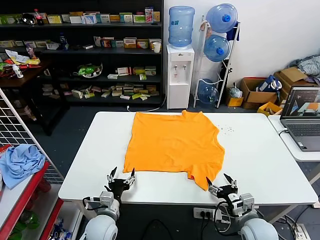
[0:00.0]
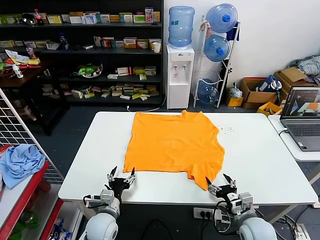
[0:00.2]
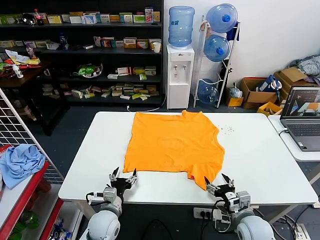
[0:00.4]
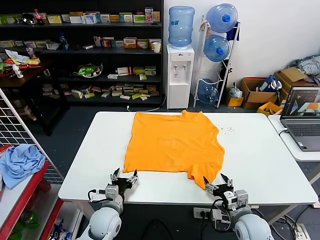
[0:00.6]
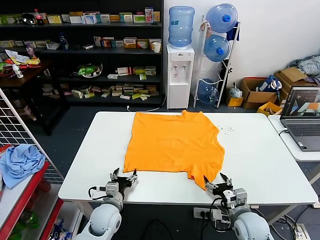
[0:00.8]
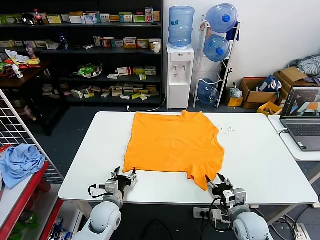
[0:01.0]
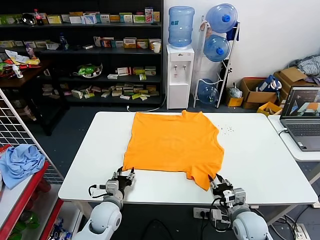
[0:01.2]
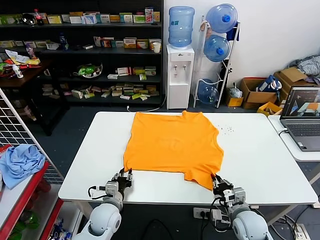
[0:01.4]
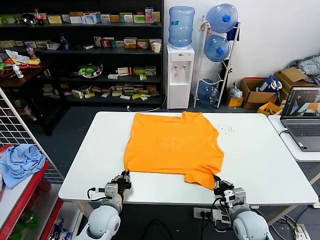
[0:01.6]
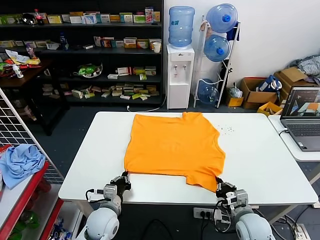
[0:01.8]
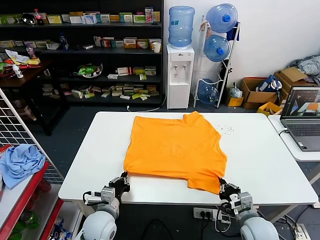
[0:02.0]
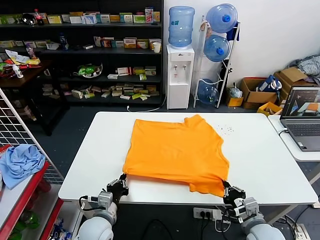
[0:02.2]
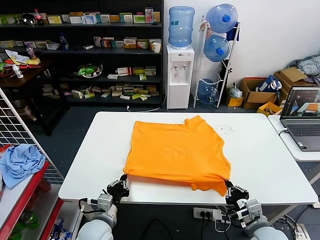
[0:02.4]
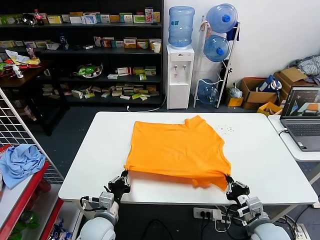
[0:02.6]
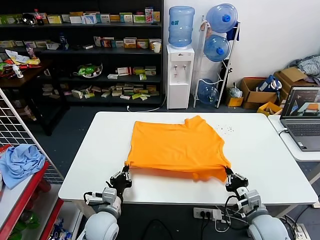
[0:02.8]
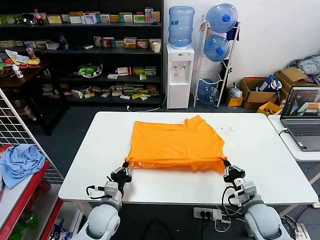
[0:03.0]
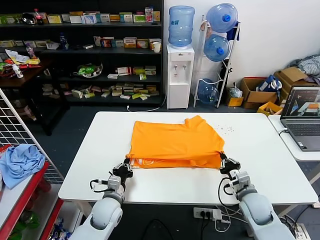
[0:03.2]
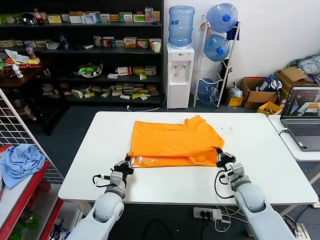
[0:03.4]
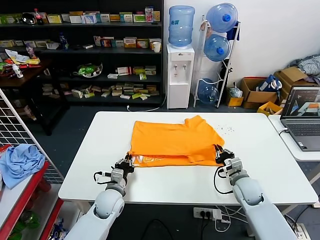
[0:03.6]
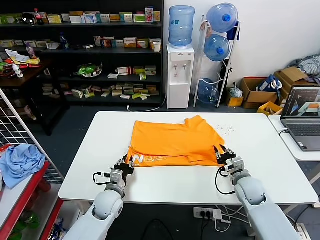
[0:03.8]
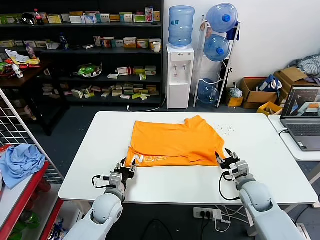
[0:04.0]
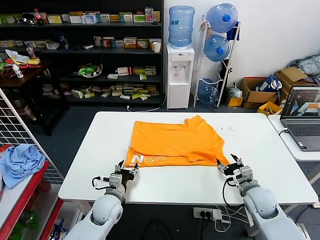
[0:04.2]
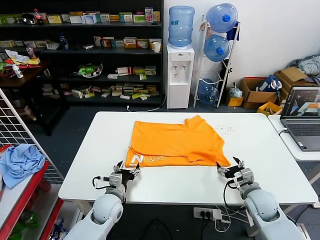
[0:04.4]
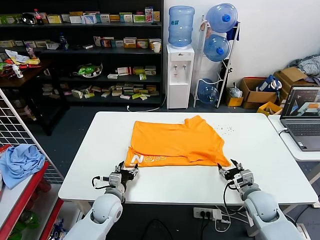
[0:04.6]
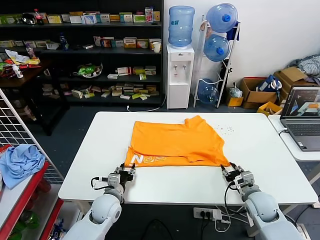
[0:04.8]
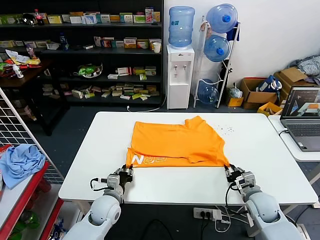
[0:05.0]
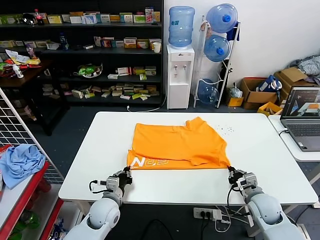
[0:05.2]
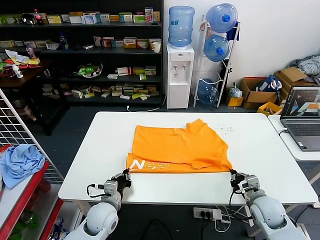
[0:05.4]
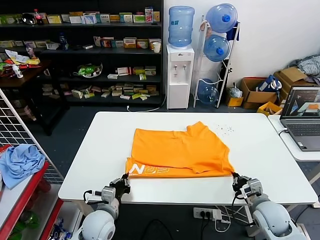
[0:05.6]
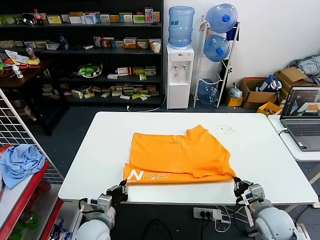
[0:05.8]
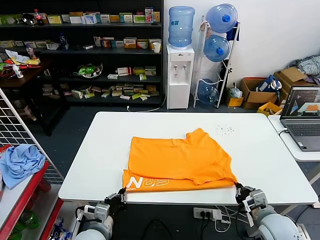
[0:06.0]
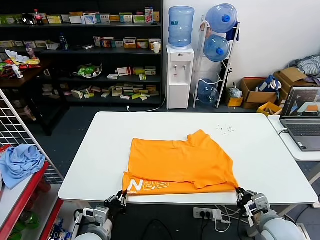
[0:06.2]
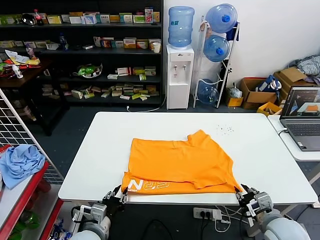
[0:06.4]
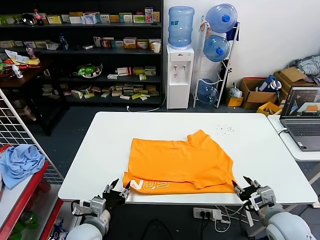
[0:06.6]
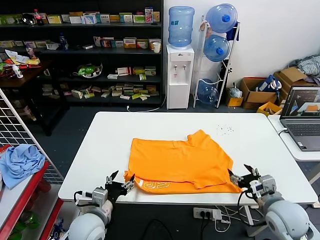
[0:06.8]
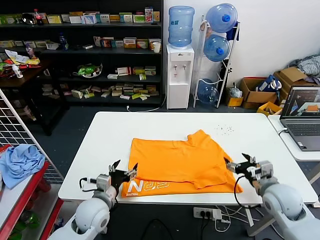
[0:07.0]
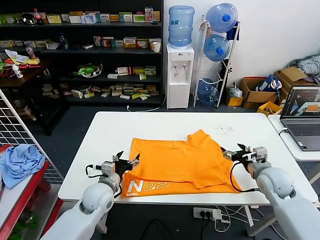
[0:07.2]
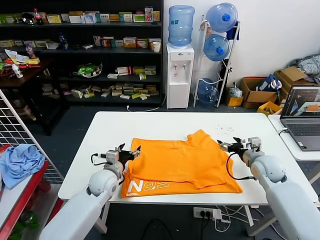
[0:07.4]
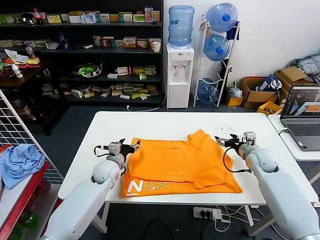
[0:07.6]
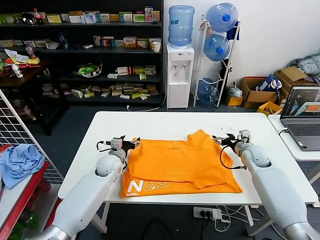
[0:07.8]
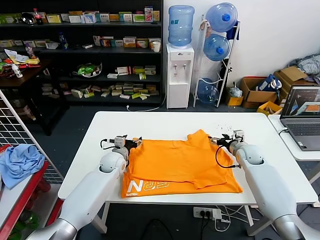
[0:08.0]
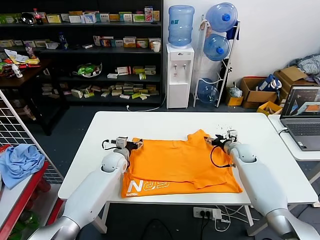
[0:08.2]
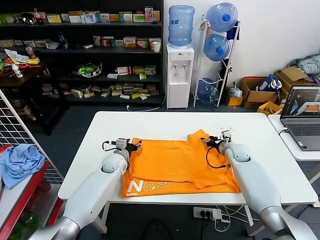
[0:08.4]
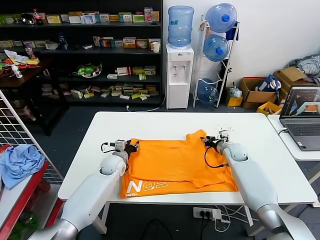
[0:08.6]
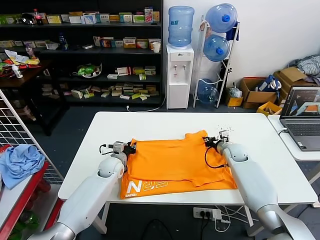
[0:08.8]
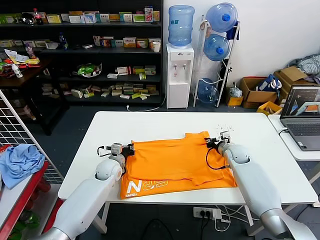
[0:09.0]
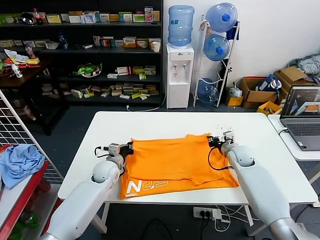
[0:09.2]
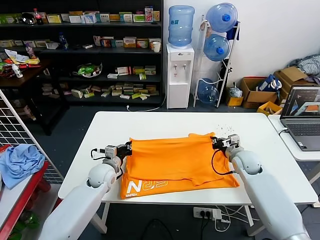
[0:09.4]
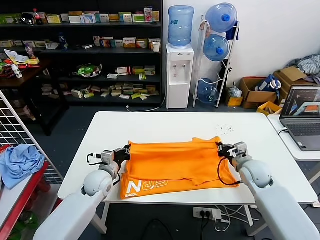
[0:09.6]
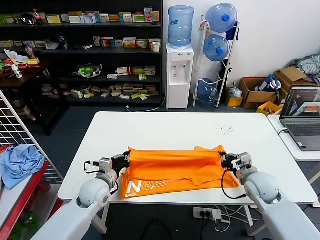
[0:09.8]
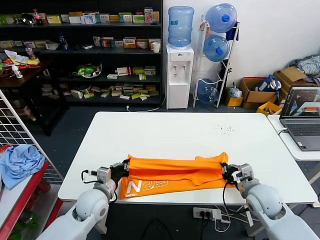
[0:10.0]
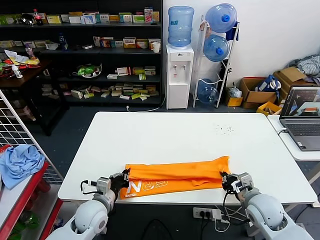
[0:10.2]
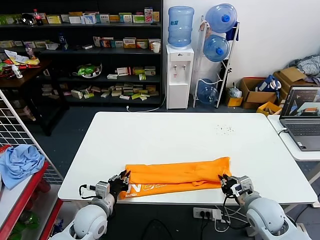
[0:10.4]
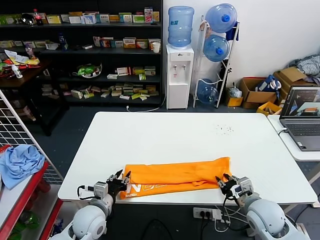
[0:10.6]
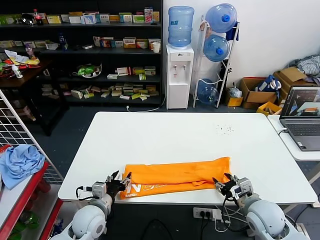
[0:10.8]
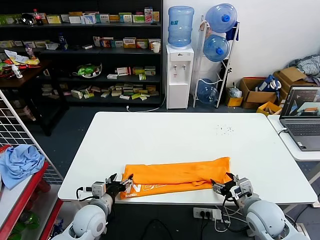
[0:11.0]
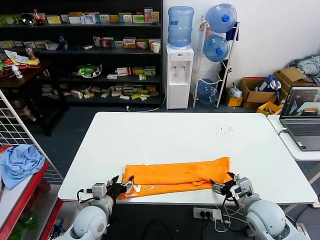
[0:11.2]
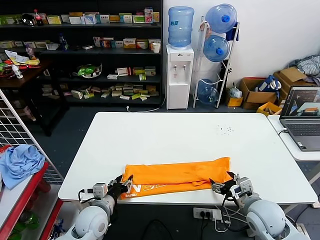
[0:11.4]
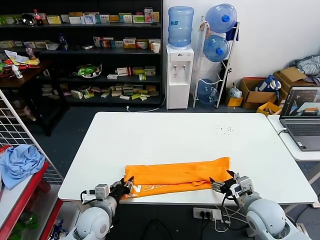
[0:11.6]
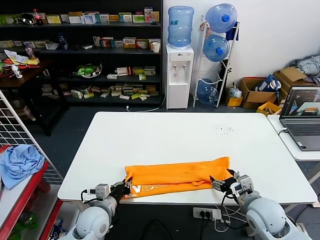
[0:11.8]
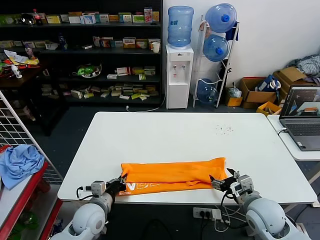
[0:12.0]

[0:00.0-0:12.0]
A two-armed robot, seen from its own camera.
Task of the whole recording: fold and organize the clothes.
Step, 0:00.0 to 0:01.6: use both grippers simultaneously to clamp the lower edge of the clothing fabric.
Step, 0:01.8 to 0:03.8: use both grippers to drag the lower edge of the fabric forward and fold it over the upper edge.
Step, 0:04.0 to 0:06.4: Drag the clothes downward with both gripper.
Step, 0:06.6 to 0:09.0: use both grippers simultaneously to clamp the upper edge of the clothing fabric.
Step, 0:09.2 to 0:10.4: use both grippers to drag the upper edge of the fabric backward and fold it over the lower edge.
Step, 0:10.8 to 0:11.8: use the left gripper to clamp the left edge of the fabric.
0:03.0 to 0:04.4: The right gripper goes forward and returns, approximately 10 cm each way, and opens its fingers, while the left gripper opens its fingers.
0:04.4 to 0:06.0: The grippers both shift backward by roughly 10 cm. The left gripper closes. The right gripper closes its fingers.
0:06.0 to 0:07.6: Both grippers move forward, approximately 25 cm. The left gripper opens. The right gripper opens up.
0:07.6 to 0:09.0: The right gripper moves forward and to the left, roughly 5 cm, and closes its fingers. The left gripper changes place by some 5 cm, and closes its fingers.
0:09.0 to 0:10.4: The grippers both shift backward by approximately 20 cm.
0:10.4 to 0:12.0: The left gripper opens and closes again. Meanwhile the right gripper opens its fingers.

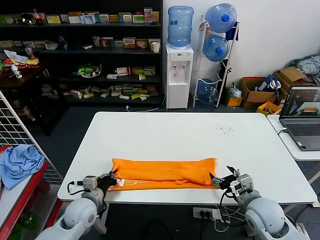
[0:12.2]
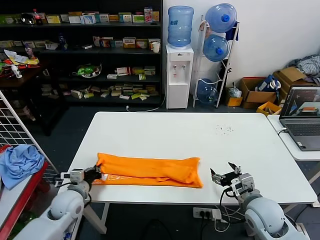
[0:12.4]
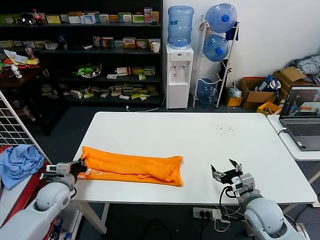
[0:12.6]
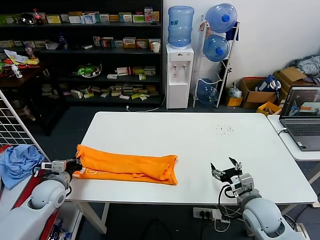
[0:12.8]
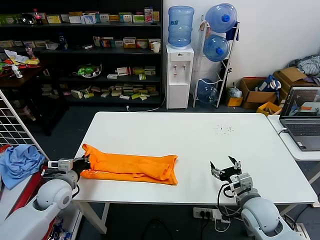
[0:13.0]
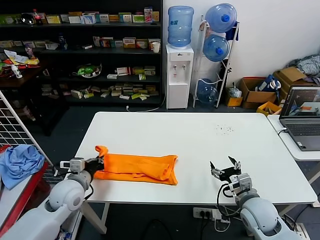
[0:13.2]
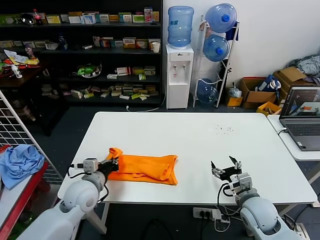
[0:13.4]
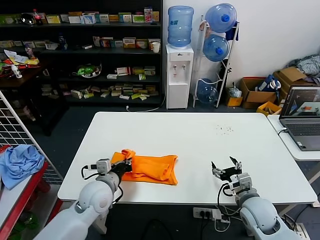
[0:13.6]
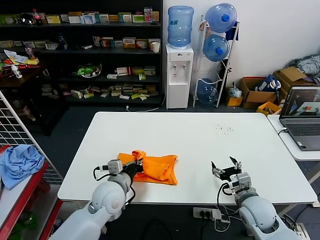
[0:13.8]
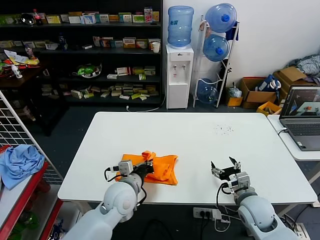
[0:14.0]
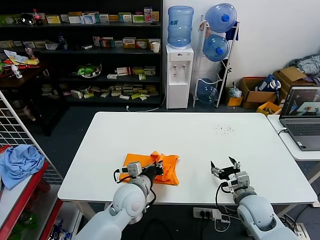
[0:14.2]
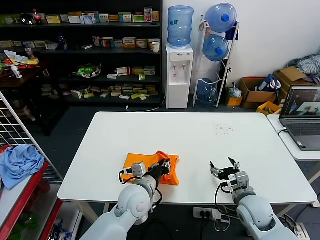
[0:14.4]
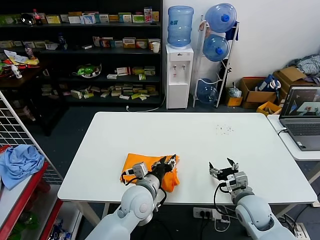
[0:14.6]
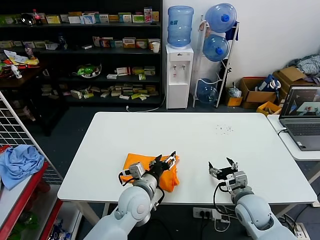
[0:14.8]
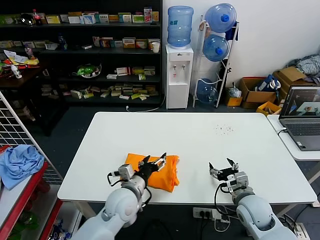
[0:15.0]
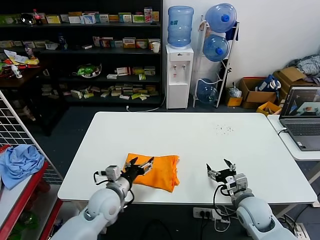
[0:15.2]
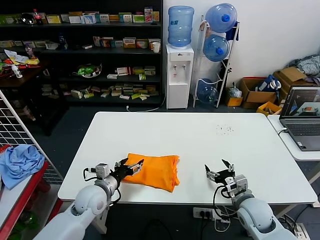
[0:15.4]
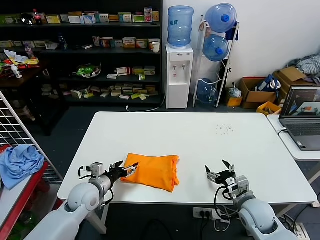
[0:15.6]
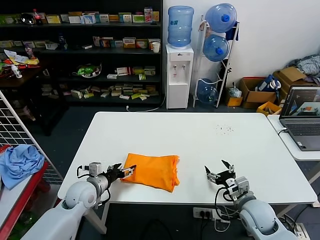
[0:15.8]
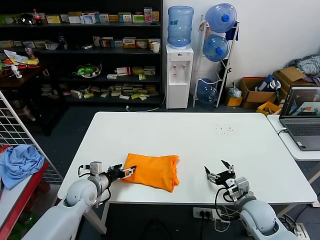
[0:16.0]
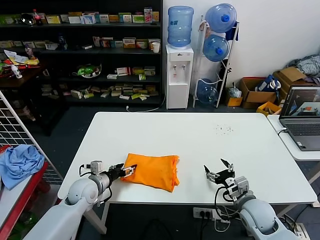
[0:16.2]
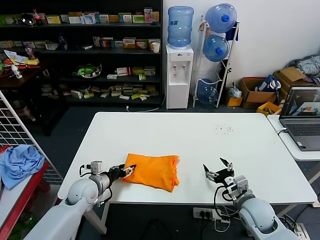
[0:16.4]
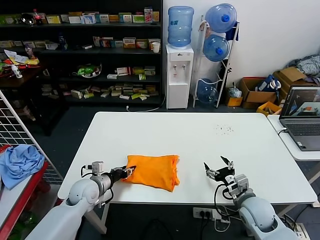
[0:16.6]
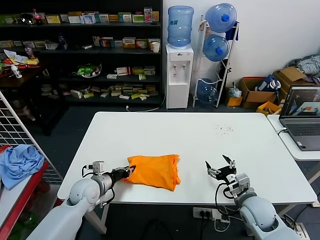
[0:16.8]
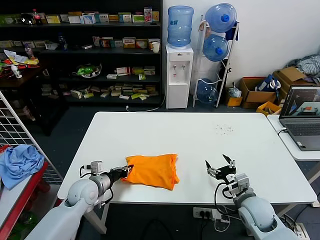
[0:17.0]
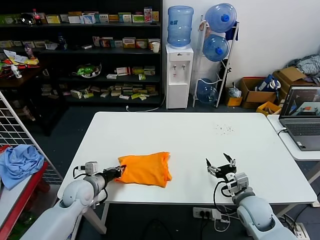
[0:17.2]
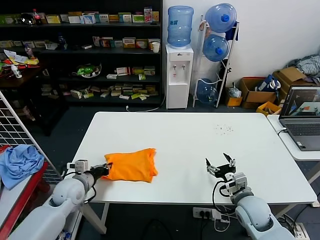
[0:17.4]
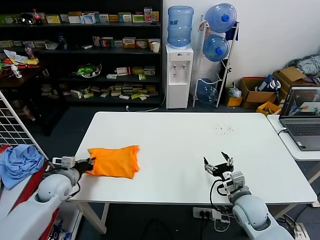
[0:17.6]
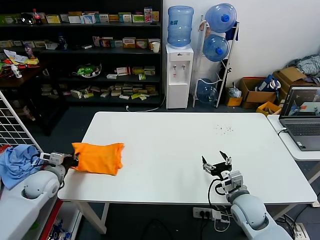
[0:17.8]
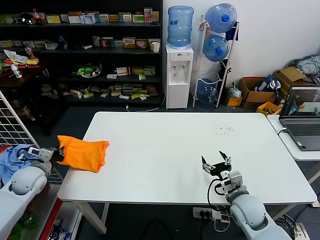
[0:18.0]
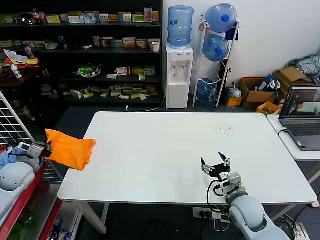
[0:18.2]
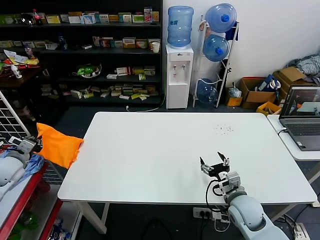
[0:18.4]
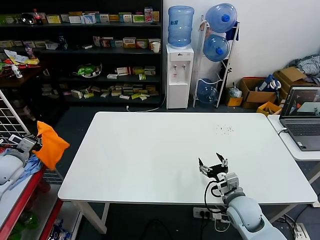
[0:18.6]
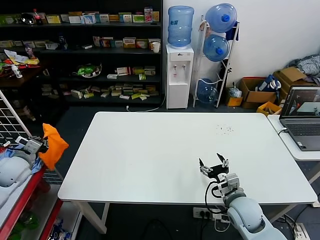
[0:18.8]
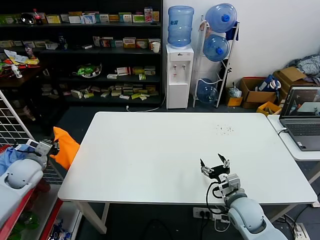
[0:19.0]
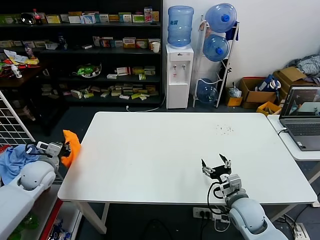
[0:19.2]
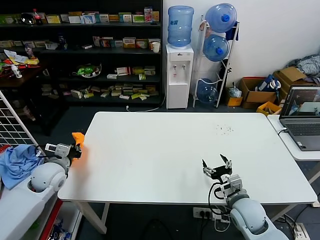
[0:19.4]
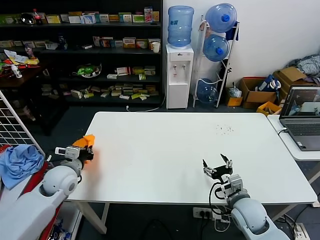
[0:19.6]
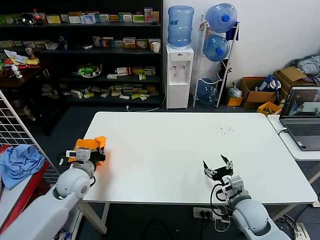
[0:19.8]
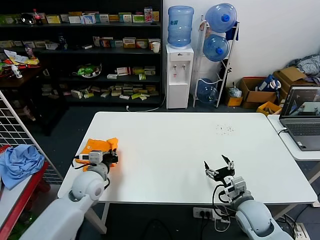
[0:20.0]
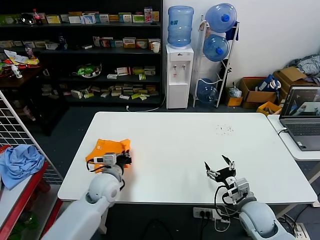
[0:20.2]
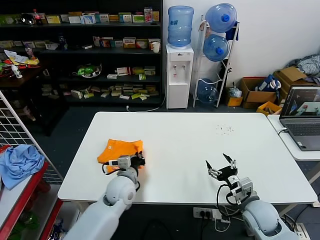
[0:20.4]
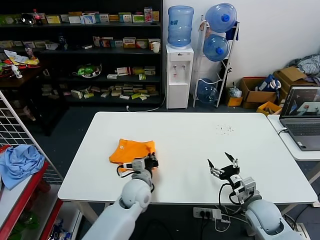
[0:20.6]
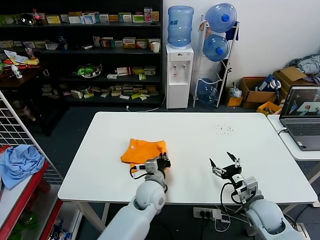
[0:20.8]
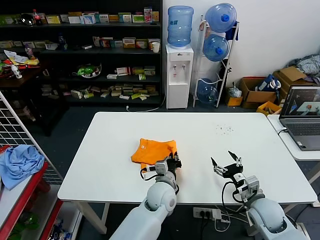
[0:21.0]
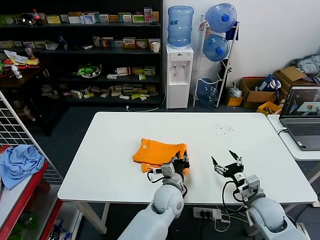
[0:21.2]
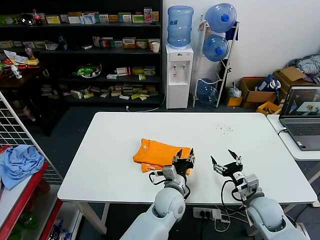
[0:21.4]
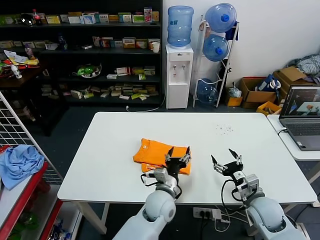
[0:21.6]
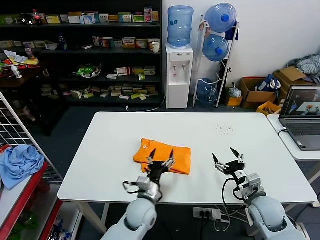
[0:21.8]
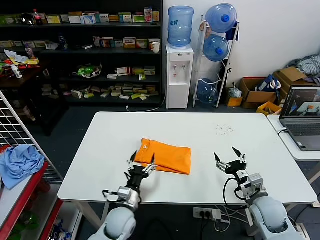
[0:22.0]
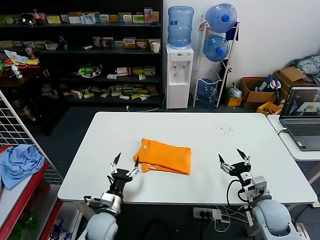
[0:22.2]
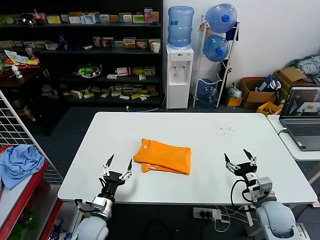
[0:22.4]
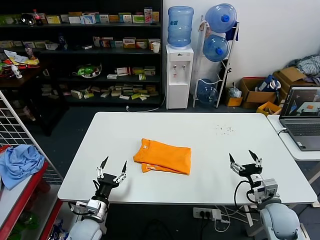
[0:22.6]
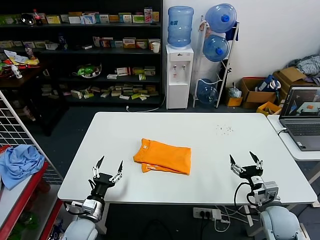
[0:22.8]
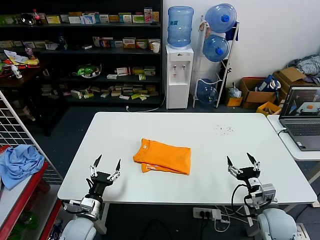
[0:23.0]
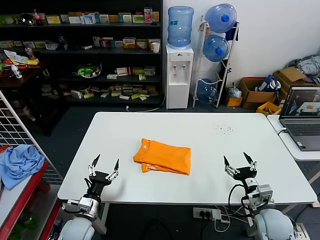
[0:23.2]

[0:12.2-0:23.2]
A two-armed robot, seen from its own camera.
Task of the whole recording: fold and organize the clothes.
Step, 0:12.2 to 0:14.6: use the left gripper to drag the left edge of the fabric to the left and folds it over the right edge.
Step, 0:14.8 to 0:21.4: Flip the folded clothes over with left gripper.
0:12.2 to 0:13.8: The left gripper moves to the right and upward, approximately 10 cm.
0:13.8 to 0:15.4: The left gripper heads to the left, covering approximately 5 cm, and opens up.
0:15.4 to 0:17.0: The left gripper ends up approximately 5 cm from where it was, and closes.
0:17.0 to 0:18.4: The left gripper shifts roughly 25 cm to the left and upward.
0:18.4 to 0:20.0: The left gripper goes some 25 cm to the right.
0:20.0 to 0:21.6: The left gripper goes some 25 cm to the right, and opens its fingers.
0:21.6 to 0:23.2: The left gripper is displaced to the left by about 30 cm.
